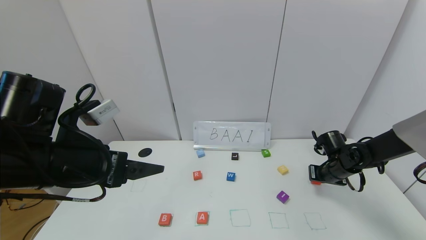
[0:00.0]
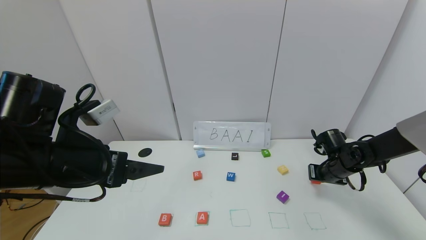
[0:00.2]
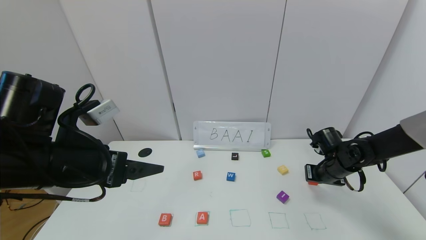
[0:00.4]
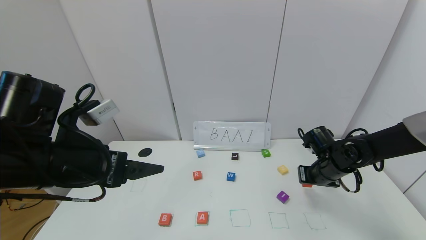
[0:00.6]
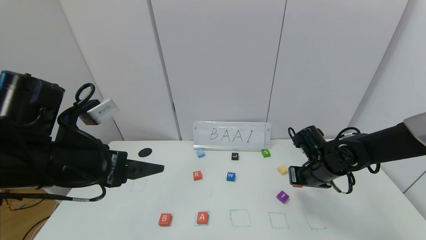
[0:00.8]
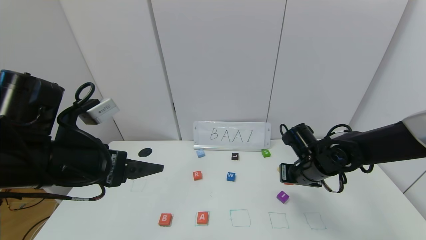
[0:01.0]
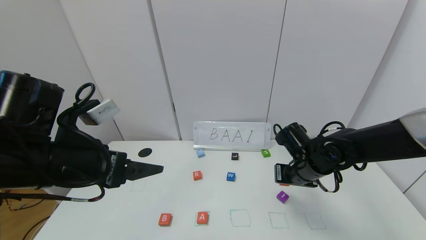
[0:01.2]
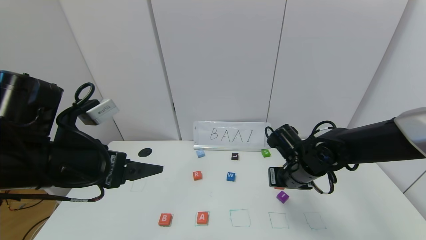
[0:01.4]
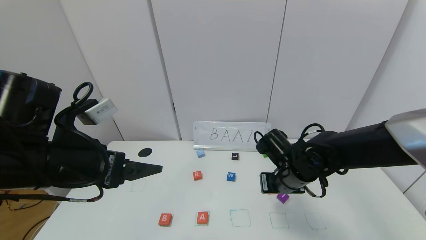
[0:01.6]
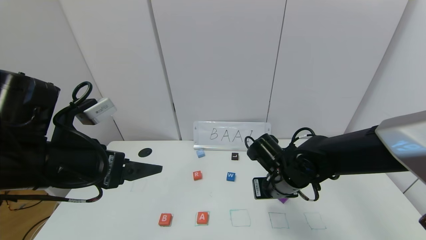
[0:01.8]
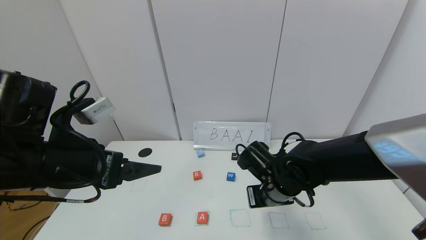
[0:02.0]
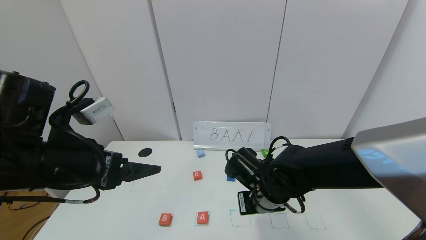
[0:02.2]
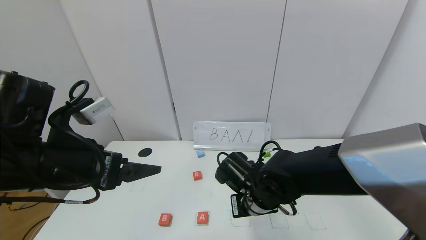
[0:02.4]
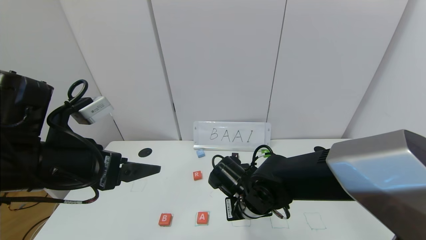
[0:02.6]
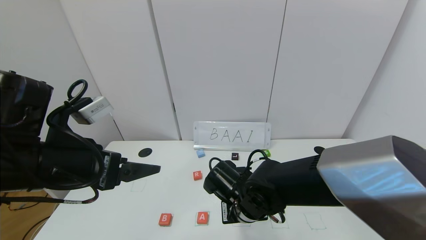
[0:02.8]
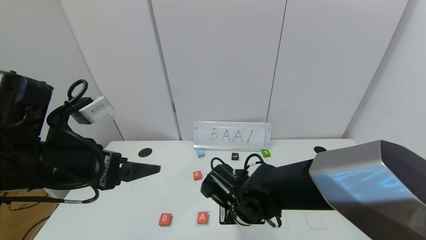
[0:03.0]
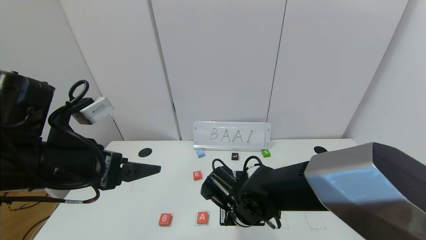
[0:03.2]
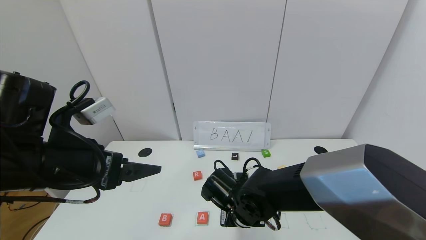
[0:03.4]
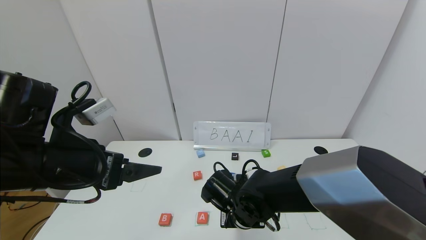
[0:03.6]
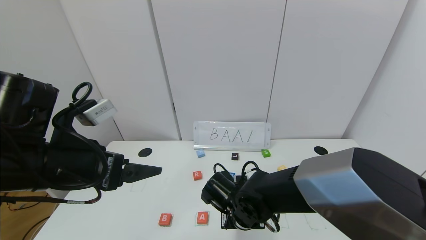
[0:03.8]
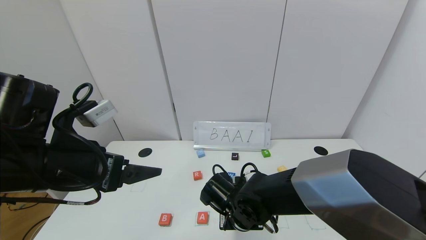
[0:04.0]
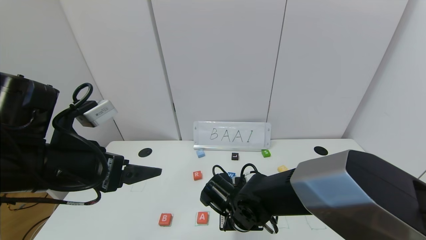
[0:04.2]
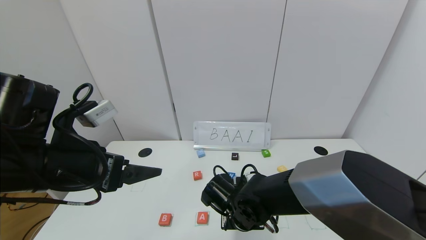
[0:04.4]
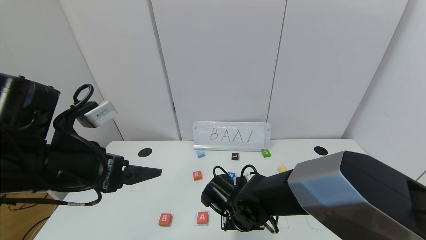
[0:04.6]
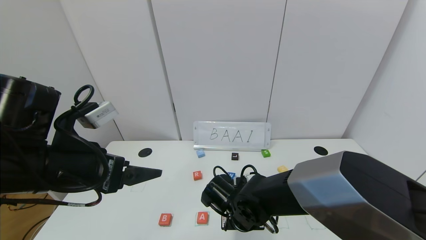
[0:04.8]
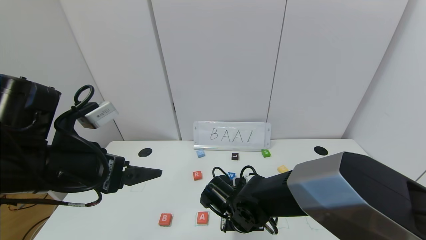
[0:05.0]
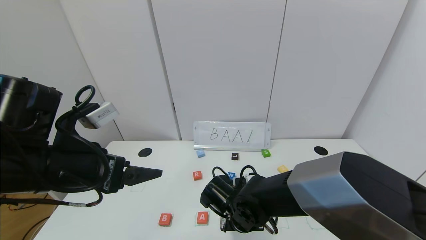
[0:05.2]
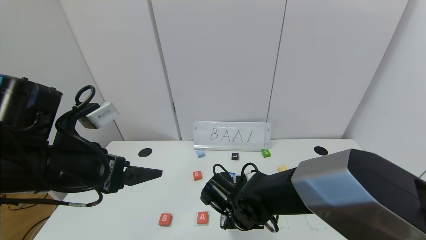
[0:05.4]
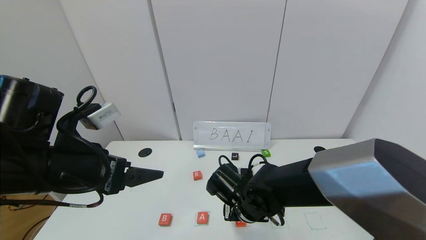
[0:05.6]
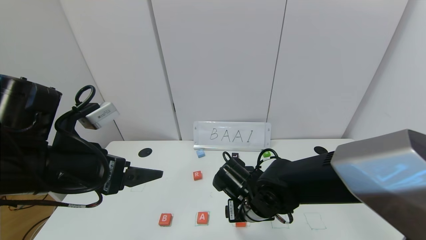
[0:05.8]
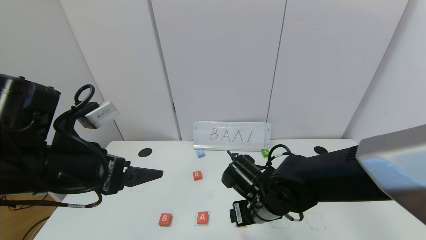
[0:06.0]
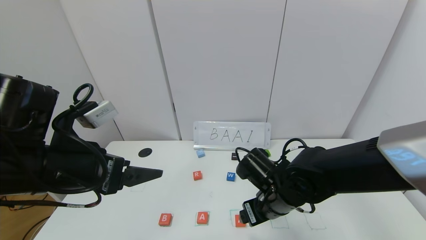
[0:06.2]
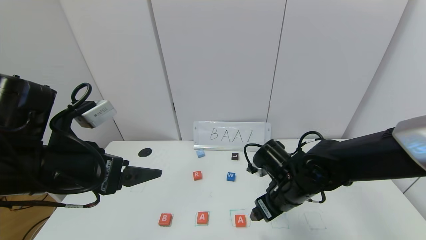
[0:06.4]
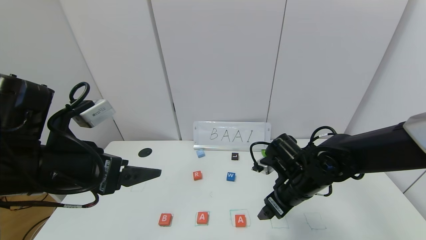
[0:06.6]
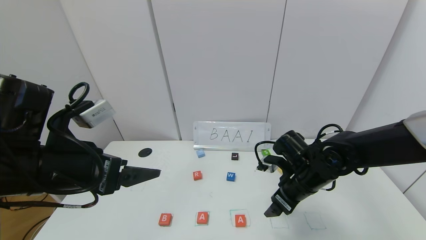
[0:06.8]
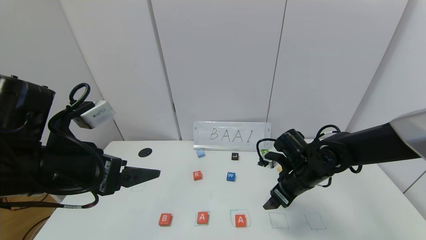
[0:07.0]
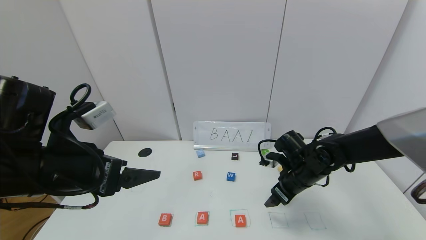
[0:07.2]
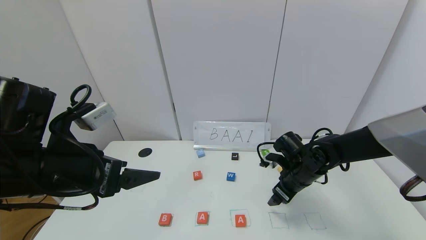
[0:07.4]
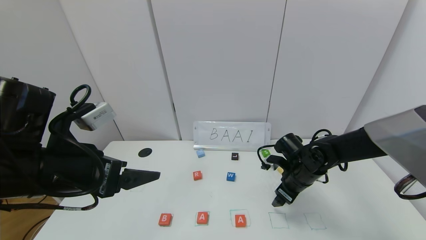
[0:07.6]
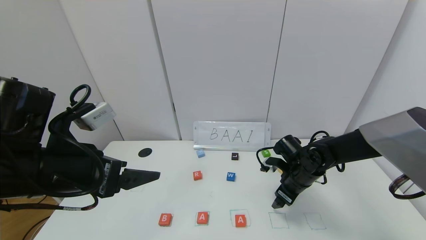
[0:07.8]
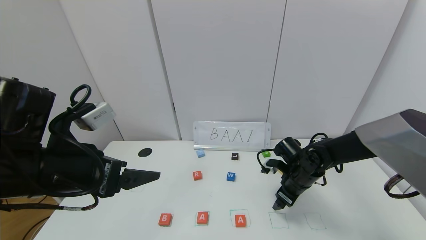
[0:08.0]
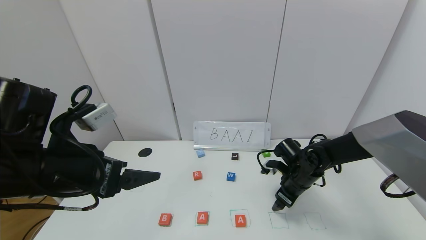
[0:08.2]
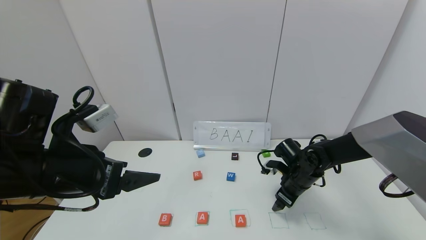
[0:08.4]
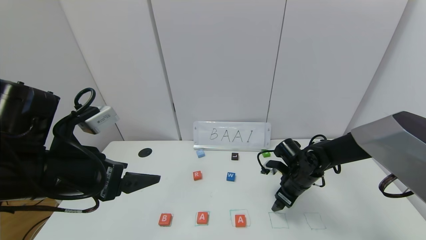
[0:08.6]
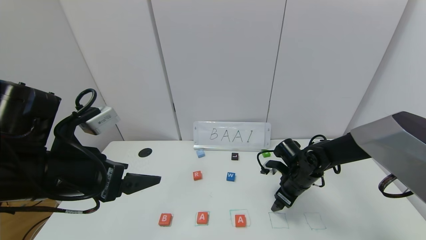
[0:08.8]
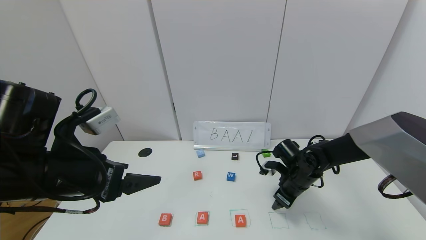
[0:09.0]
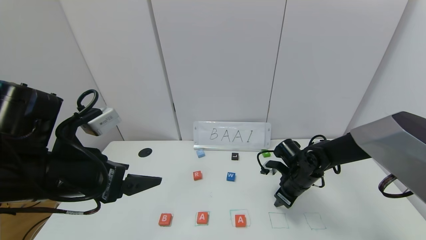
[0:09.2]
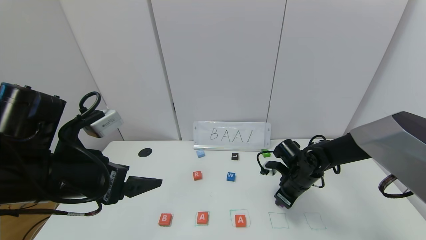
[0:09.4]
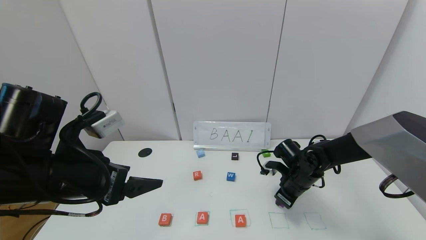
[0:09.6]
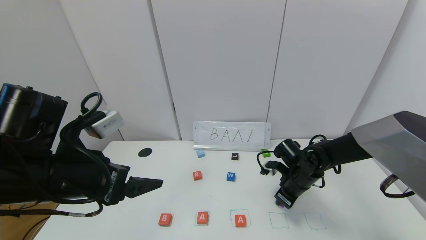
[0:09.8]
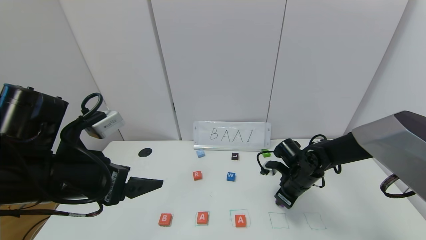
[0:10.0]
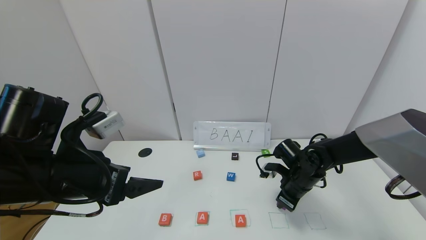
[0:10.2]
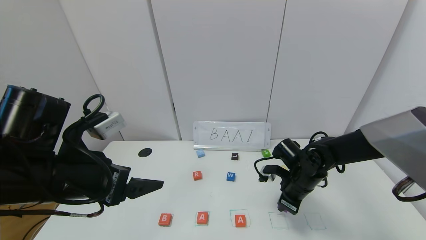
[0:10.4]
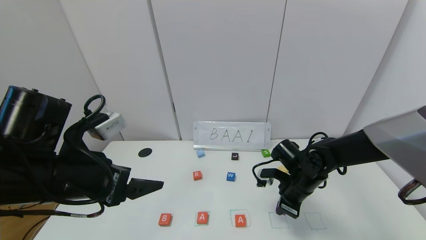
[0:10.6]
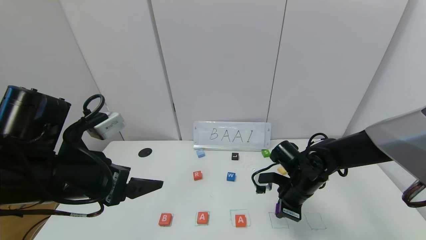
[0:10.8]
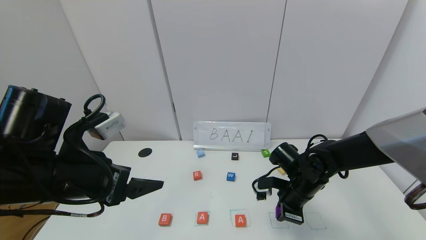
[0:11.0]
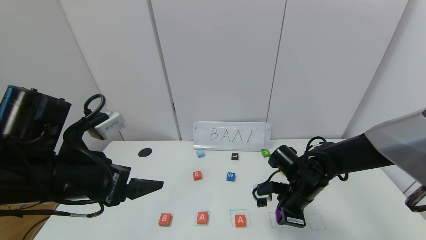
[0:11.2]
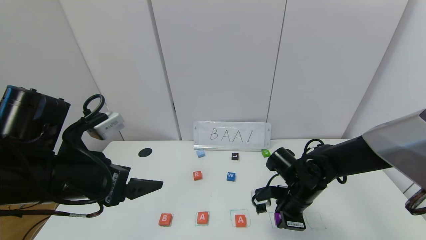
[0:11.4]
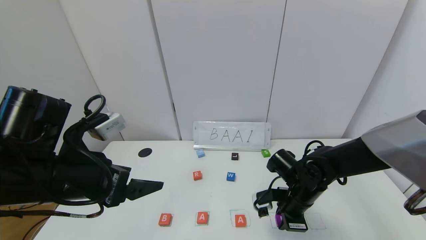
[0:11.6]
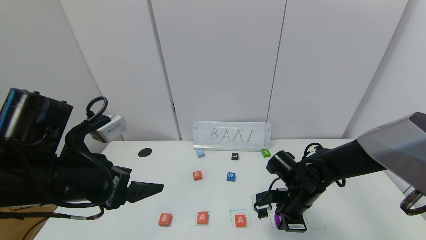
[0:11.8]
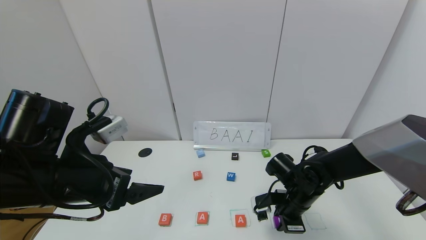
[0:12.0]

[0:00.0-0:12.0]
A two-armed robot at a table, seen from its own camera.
Task of the whole recording: use the gripper to find blocks with the letters b, a, a, and i on the table and arrange them into BAAI, then find r and N and turn the arranged baai into brian.
Step, 0:00.0 to 0:05.6: Place the second block A in the third location.
0:00.0 to 0:01.6: The right gripper shifts roughly 20 cm to the left and backward.
0:01.6 to 0:03.0: The right gripper heads to the left, covering roughly 10 cm.
0:03.0 to 0:04.4: There are only small adjustments of the grippers.
0:04.4 to 0:06.0: The right gripper shifts roughly 5 cm upward, and opens.
0:06.0 to 0:07.6: The right gripper is displaced to the right and forward by some 15 cm.
0:07.6 to 0:09.0: The right gripper closes its fingers.
0:09.0 to 0:10.4: The right gripper closes up.

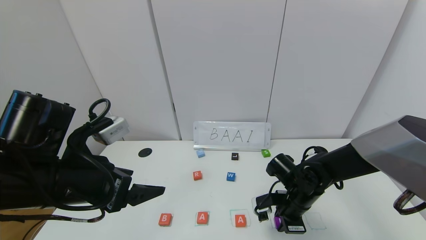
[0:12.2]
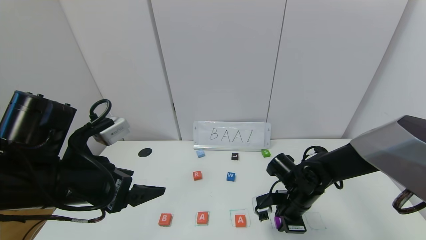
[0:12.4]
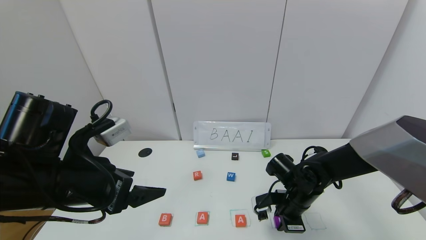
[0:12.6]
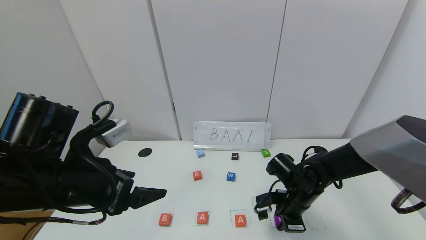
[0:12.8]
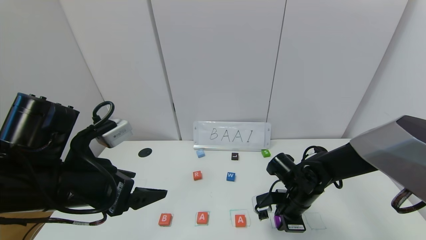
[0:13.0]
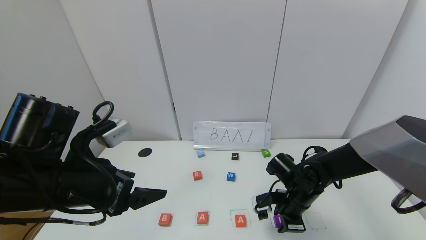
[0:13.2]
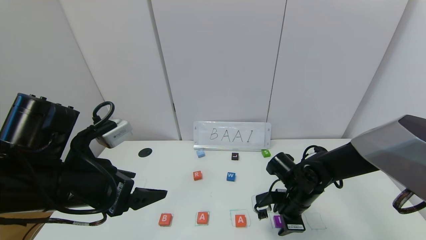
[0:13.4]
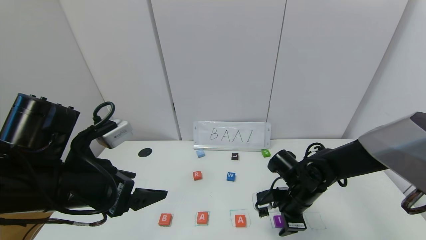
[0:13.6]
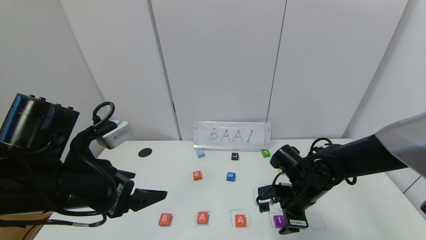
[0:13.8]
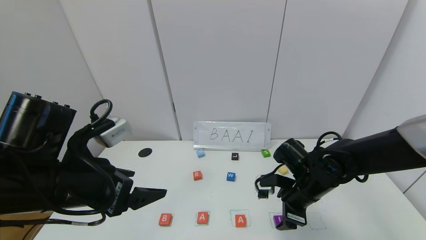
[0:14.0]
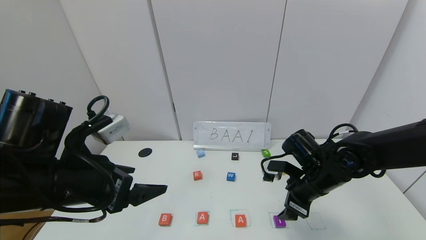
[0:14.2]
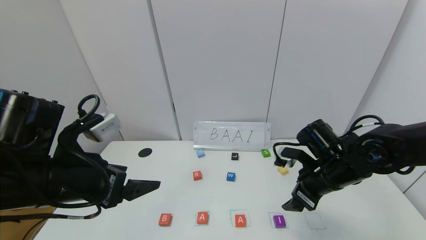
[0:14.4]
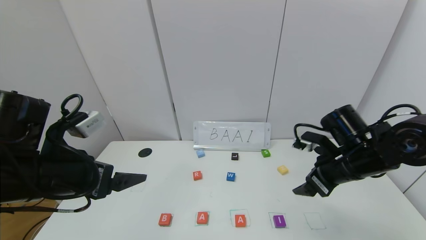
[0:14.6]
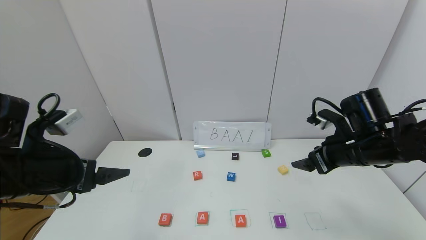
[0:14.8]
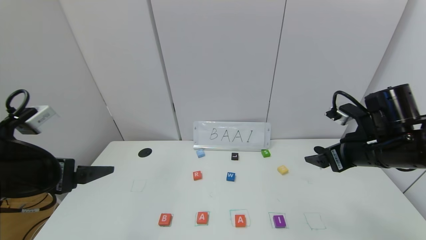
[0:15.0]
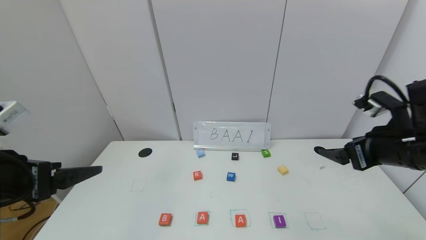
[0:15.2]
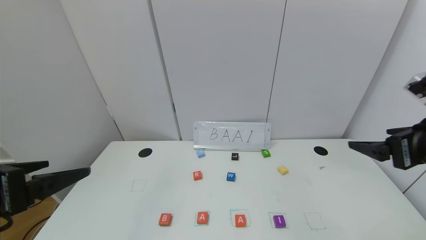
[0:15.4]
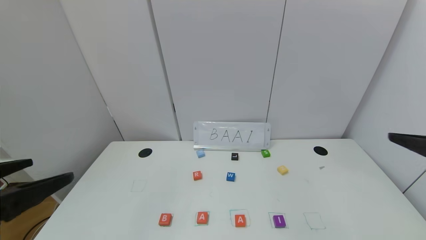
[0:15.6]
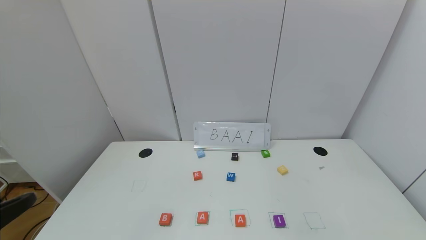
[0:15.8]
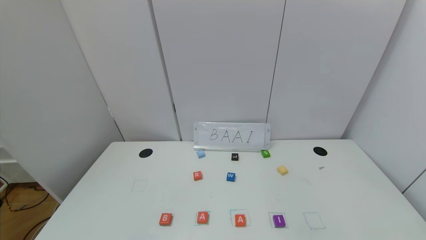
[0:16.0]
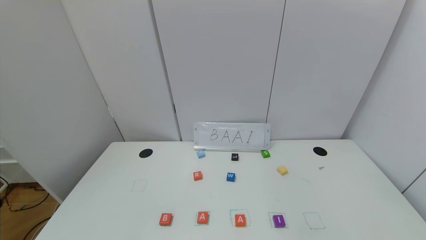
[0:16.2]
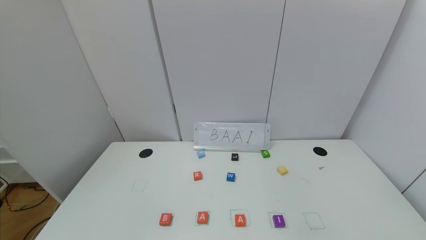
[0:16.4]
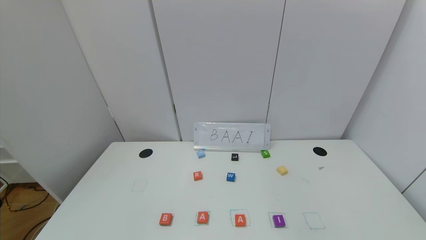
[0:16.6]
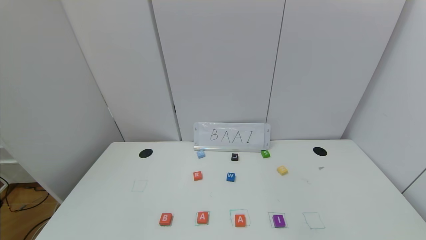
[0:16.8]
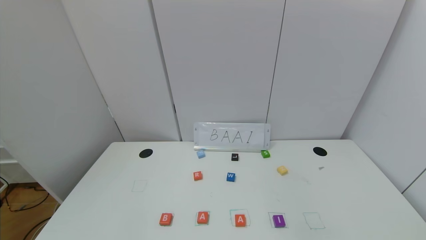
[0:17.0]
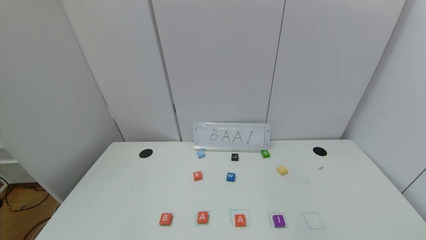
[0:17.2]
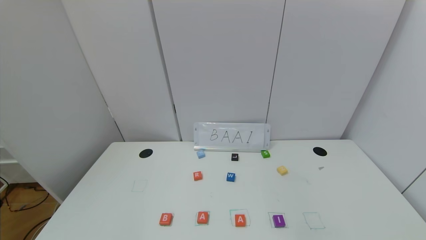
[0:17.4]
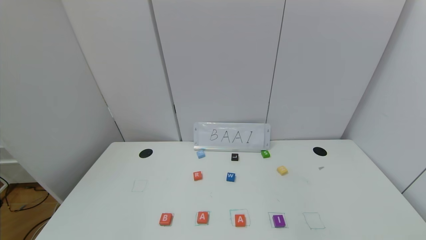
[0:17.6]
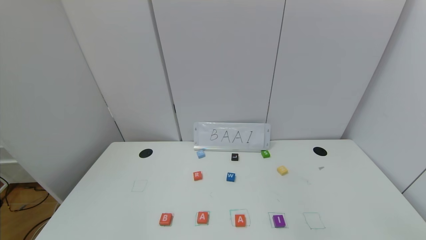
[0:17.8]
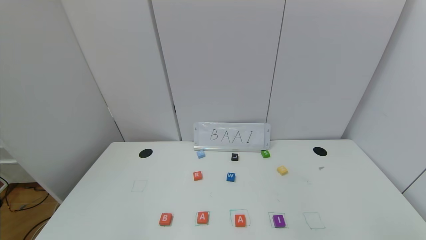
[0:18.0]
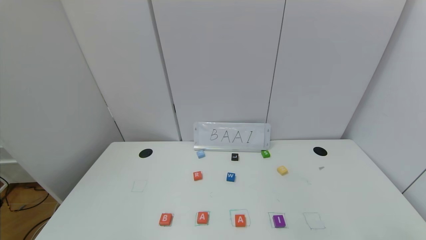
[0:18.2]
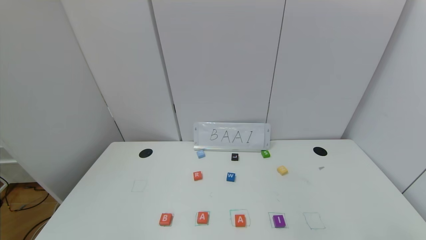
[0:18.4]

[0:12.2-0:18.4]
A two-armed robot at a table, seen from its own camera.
Task of the whole recording: use the gripper to find blocks with the letters b, a, a, and i on the table and arrange them into BAAI, then find r and N and turn the arranged baai into brian.
0:12.2 to 0:13.8: The right gripper opens its fingers.
0:13.8 to 0:15.4: The left gripper travels to the left and backward by about 10 cm. The right gripper moves upward, to the right and backward, about 25 cm.
0:15.4 to 0:16.8: Both grippers travel together backward, approximately 25 cm.
